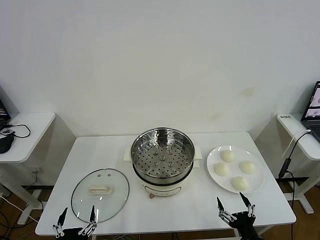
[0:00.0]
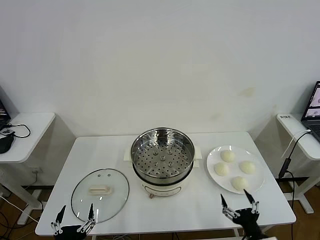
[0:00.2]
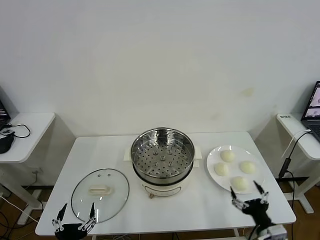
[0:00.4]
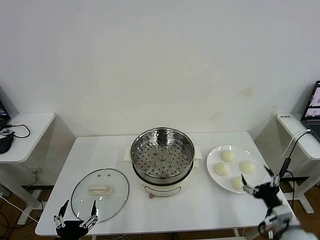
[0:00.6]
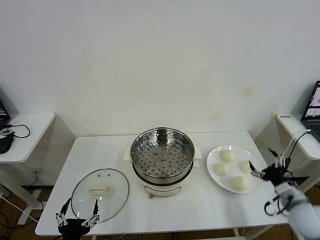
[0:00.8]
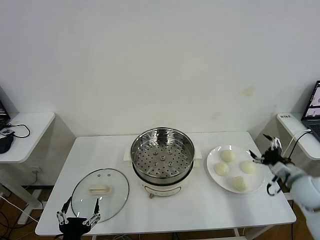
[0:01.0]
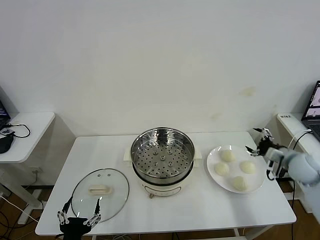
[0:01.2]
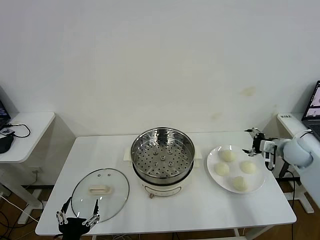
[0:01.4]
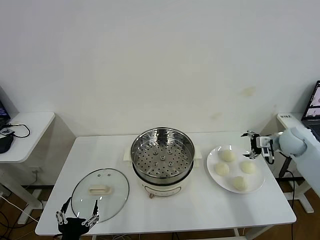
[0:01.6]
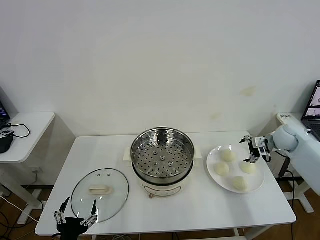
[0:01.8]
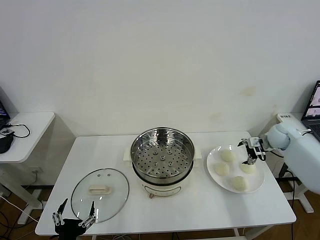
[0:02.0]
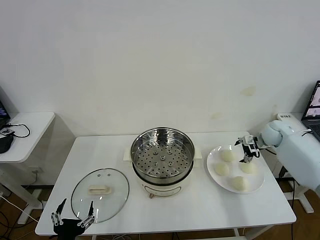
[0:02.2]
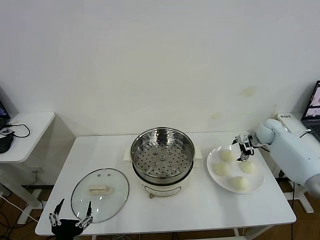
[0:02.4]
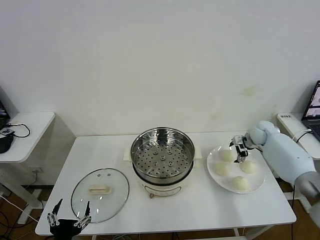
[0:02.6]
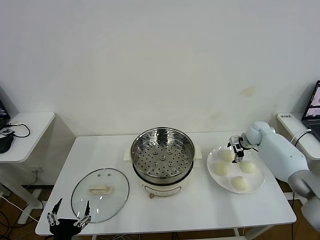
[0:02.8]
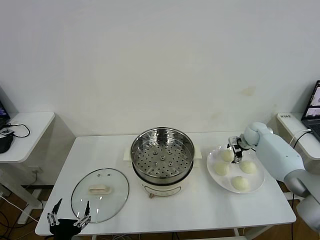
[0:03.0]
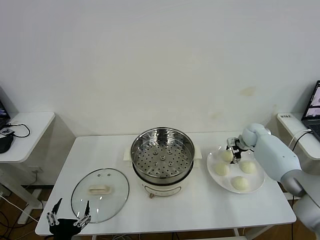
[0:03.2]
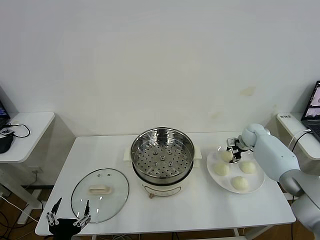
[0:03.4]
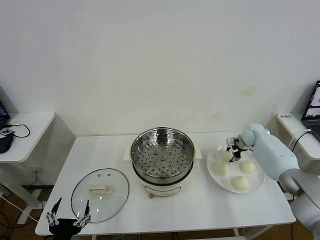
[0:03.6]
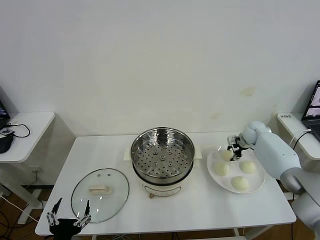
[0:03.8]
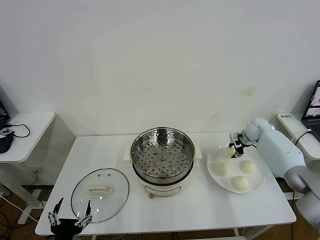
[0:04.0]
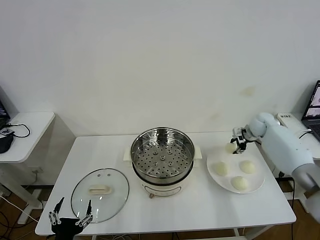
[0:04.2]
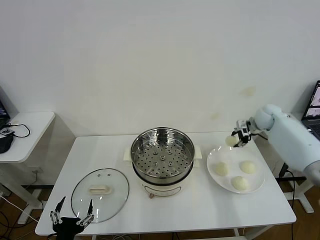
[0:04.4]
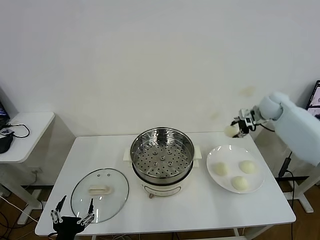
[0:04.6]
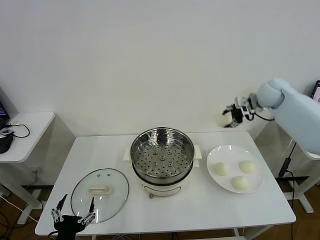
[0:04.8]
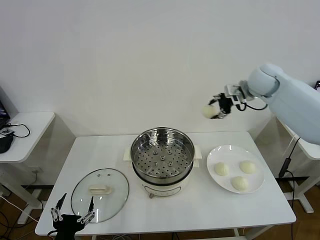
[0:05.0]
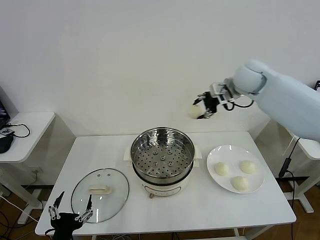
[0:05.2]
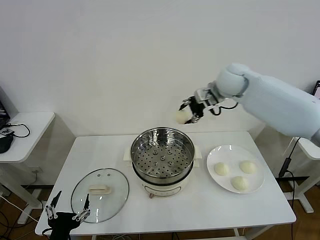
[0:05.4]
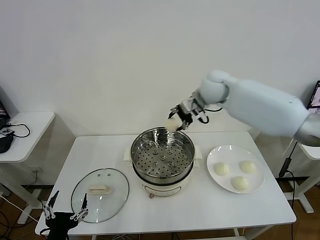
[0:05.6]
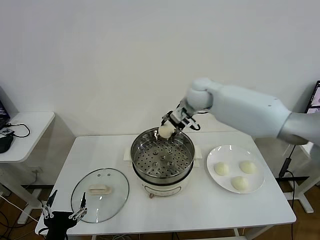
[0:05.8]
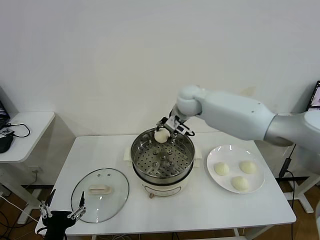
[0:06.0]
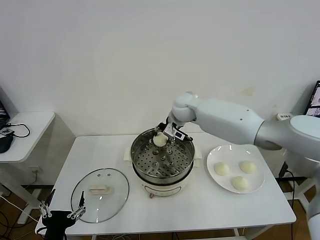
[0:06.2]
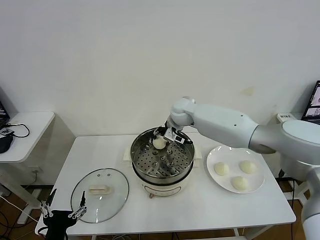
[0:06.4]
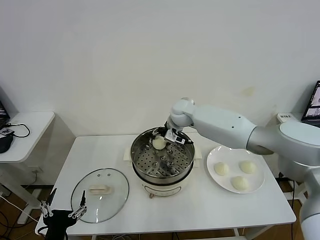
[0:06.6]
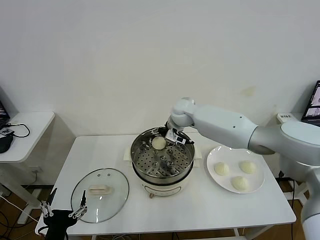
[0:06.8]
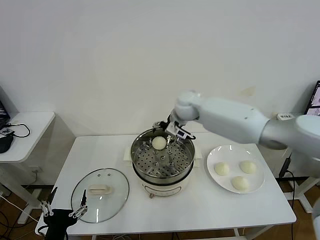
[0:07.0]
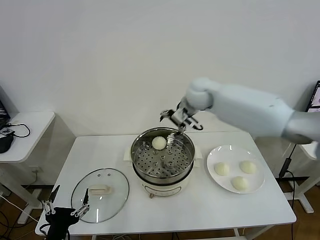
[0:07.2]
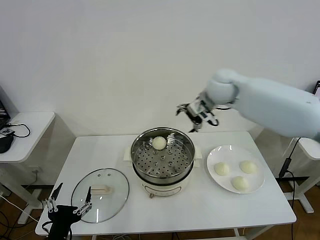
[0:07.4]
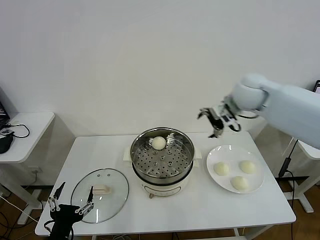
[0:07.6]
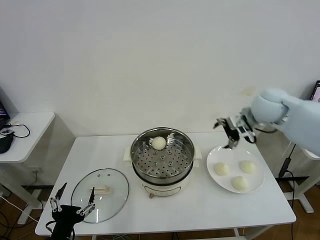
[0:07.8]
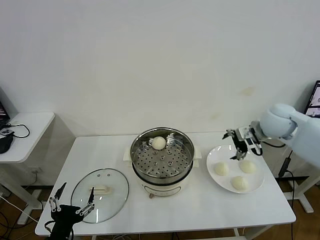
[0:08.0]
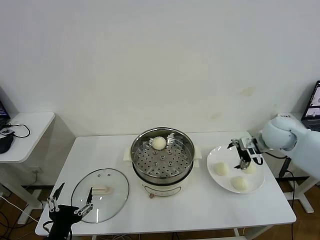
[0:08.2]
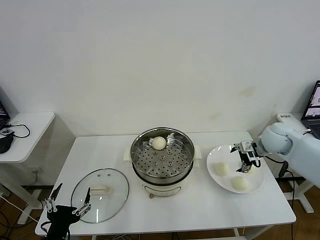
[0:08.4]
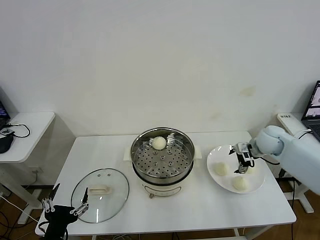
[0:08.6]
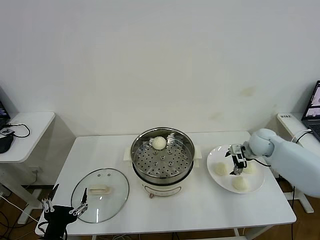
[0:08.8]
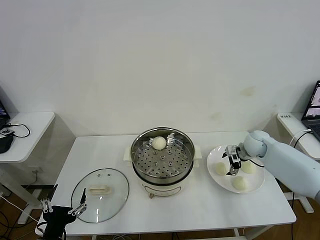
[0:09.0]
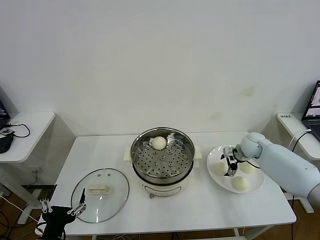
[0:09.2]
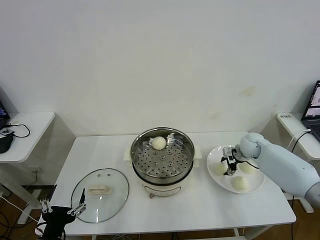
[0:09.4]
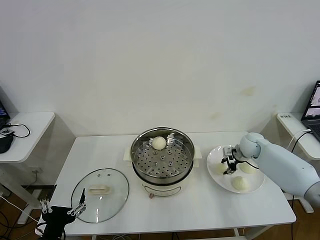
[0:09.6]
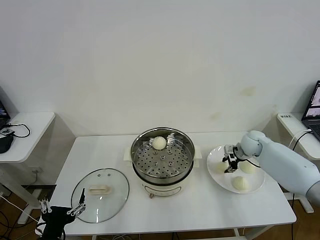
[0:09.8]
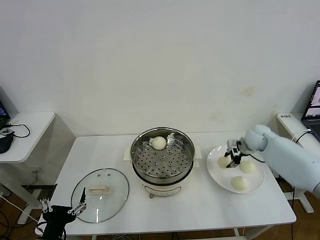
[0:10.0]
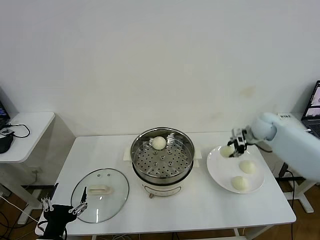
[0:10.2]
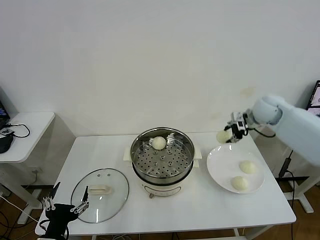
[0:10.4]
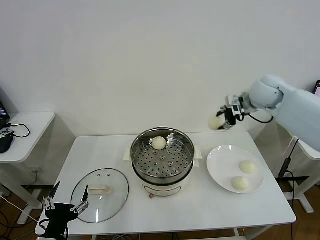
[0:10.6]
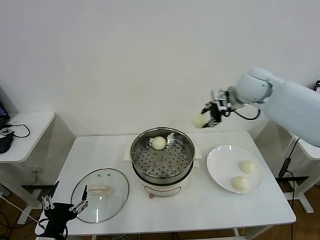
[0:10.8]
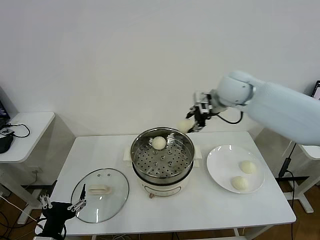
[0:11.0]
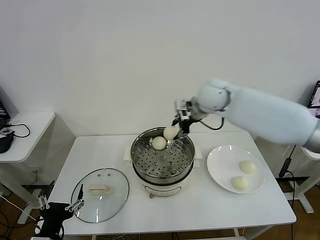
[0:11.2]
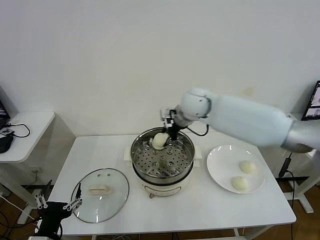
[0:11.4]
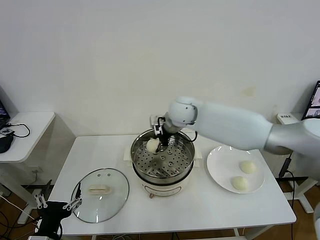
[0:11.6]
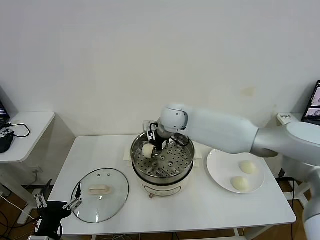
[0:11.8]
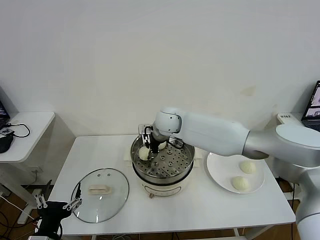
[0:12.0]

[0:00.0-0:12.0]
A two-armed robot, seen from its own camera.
Task of the whole recording: take steamed baozi put them in steamer then cover it.
Step, 0:00.0 to 0:03.4: Grasp the baozi in the plate with right gripper.
Step, 0:03.6 to 0:06.6: Place the baozi on the steamer with right gripper.
Step, 0:06.8 to 0:09.4: Grasp the baozi in the plate with right gripper.
0:01.6 to 0:03.0: The right gripper moves forward, downward and to the left, some 15 cm.
0:03.0 to 0:04.4: The right gripper moves upward, roughly 10 cm, and closes.
0:04.4 to 0:06.0: The right gripper moves to the left, roughly 30 cm.
0:06.0 to 0:07.6: The right gripper is displaced to the right and upward by roughly 20 cm, and opens up.
0:07.6 to 0:09.0: The right gripper travels downward and to the right by about 25 cm.
0:09.0 to 0:10.4: The right gripper shifts roughly 15 cm upward, and closes up.
0:10.4 to 0:12.0: The right gripper travels to the left by some 35 cm.

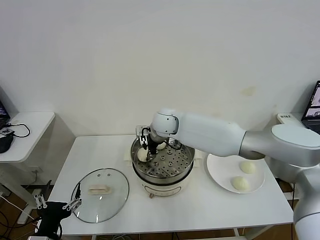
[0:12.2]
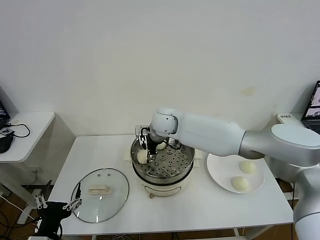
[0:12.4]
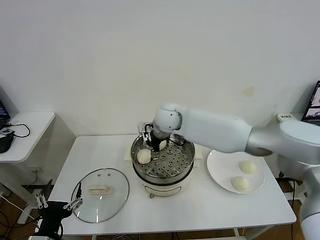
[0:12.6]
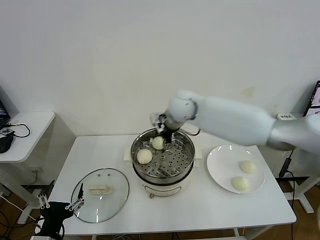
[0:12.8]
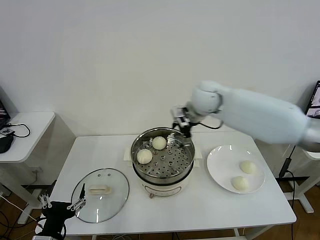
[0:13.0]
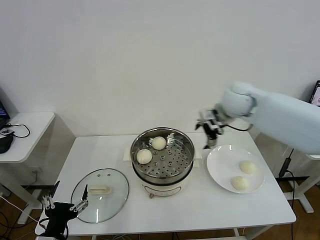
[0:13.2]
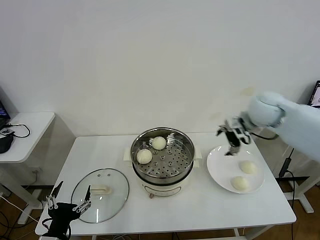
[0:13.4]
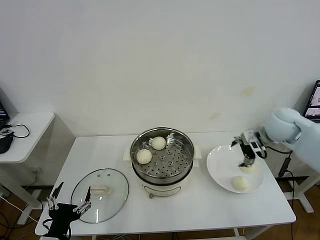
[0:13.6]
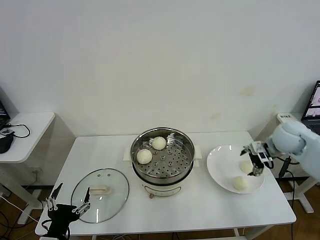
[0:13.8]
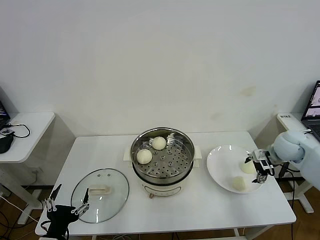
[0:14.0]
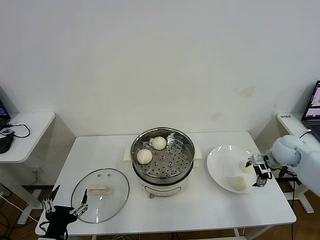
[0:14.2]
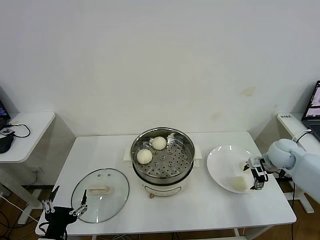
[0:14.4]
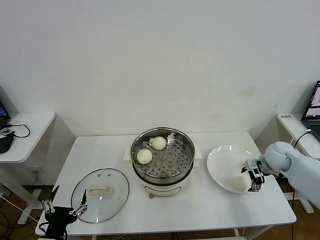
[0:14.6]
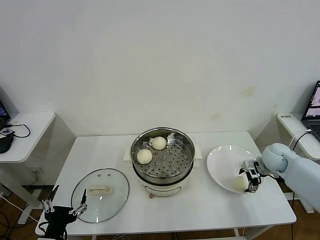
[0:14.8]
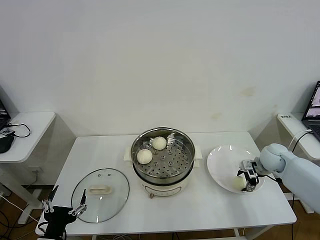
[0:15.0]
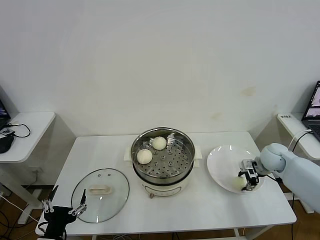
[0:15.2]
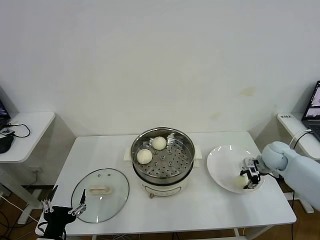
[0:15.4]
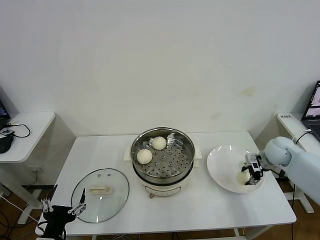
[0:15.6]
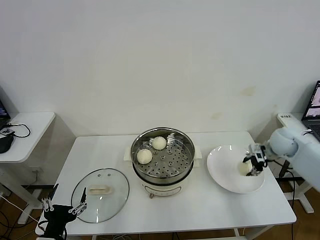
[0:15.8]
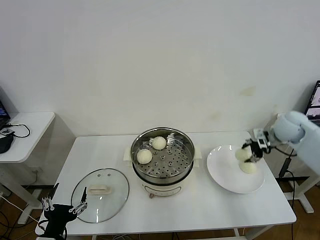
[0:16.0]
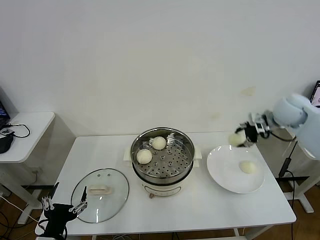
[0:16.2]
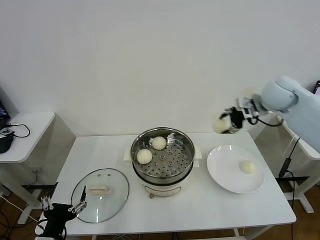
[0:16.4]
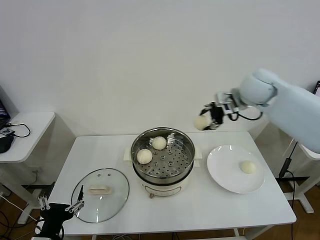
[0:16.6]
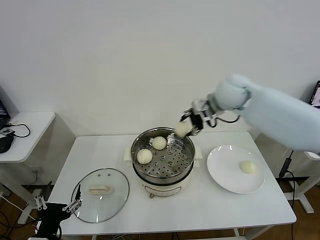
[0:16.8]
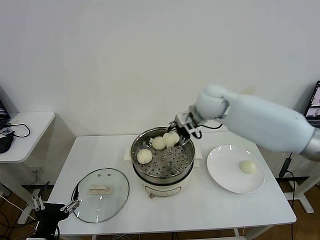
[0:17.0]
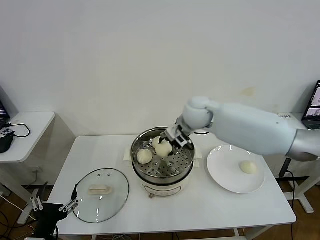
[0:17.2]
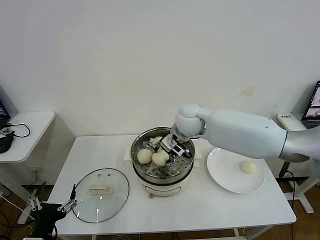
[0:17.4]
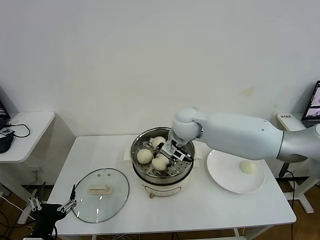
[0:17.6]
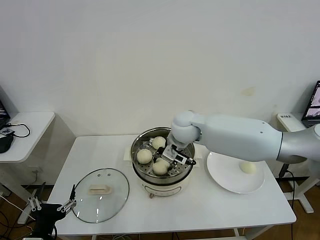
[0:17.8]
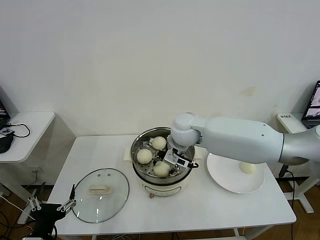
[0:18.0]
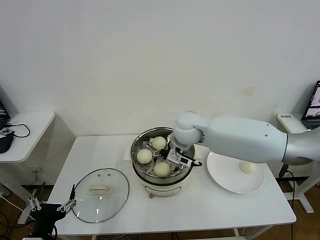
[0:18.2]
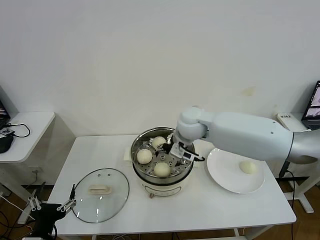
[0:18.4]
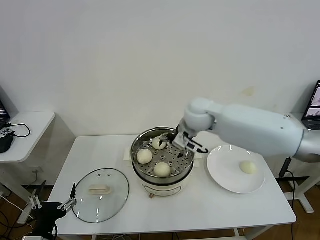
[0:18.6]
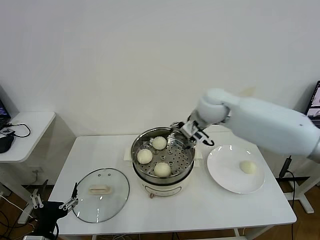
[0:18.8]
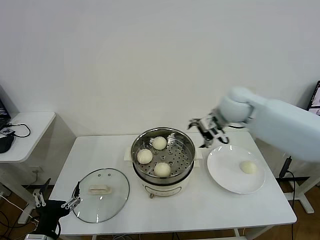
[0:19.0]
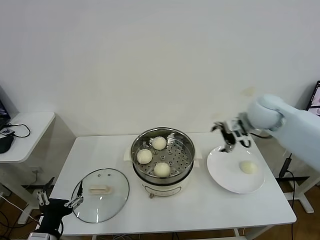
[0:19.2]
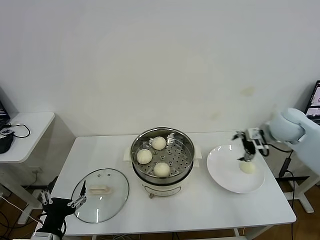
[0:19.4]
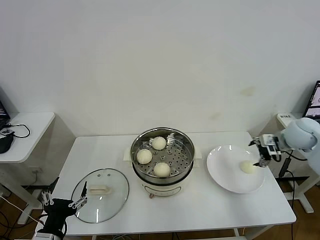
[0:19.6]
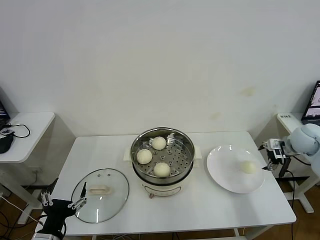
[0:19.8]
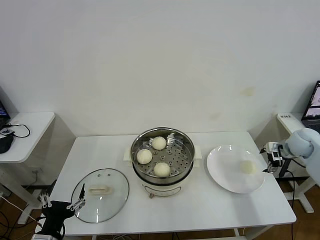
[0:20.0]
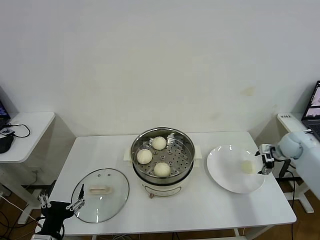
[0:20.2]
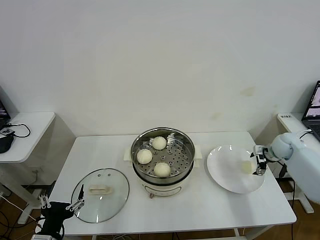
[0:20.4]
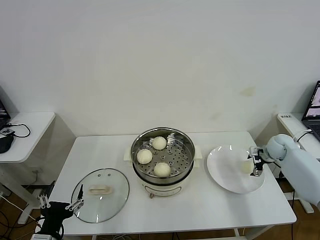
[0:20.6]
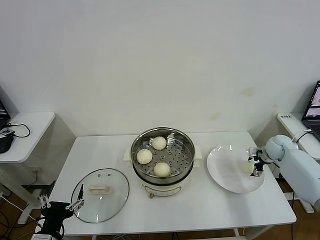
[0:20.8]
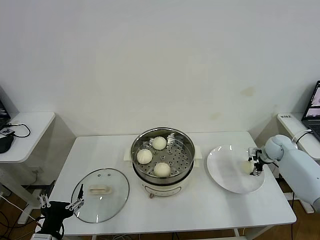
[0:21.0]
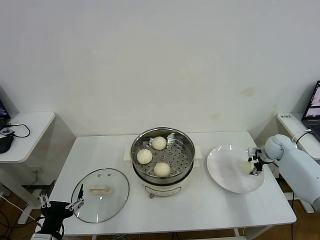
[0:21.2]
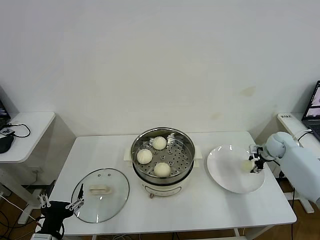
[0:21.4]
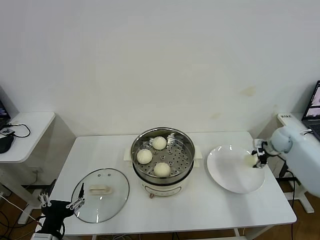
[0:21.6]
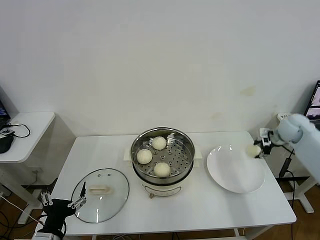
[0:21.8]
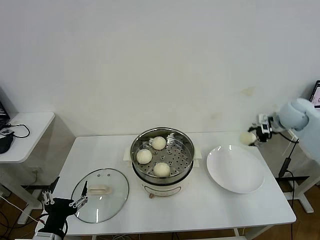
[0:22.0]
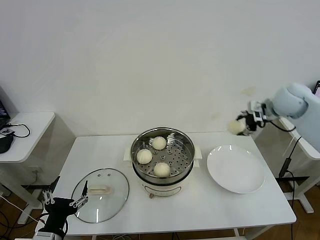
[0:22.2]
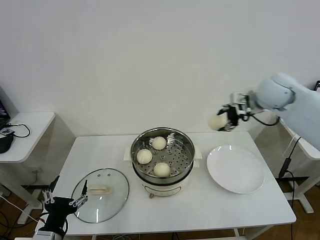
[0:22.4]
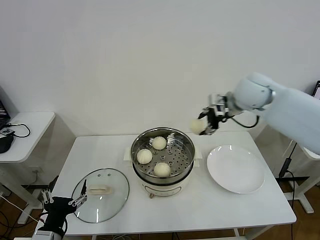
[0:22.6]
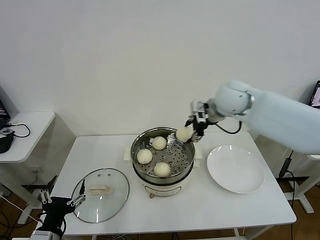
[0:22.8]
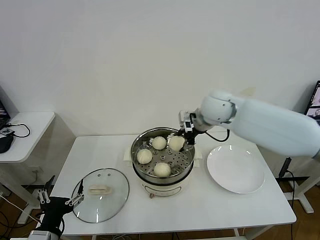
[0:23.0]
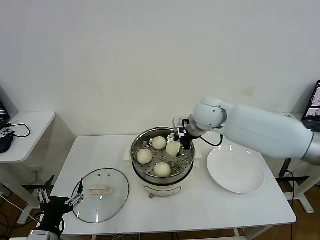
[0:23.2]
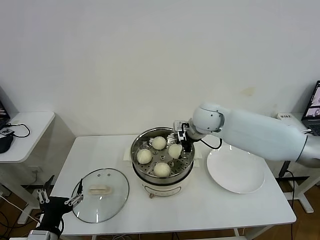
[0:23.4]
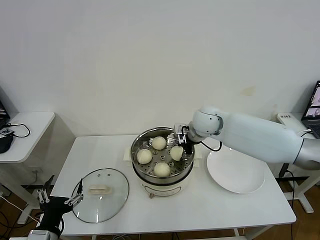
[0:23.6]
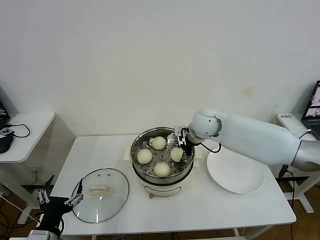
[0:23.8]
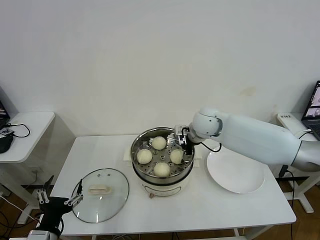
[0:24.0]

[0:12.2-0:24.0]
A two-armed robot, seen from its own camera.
Task of the whole recording: take steamed baozi put them in steamer then cover it.
Step, 0:12.6 to 0:15.2: Grasp the baozi in the plate with right gripper.
Step, 0:15.4 to 0:18.0: Place the baozi on the steamer with right gripper.
Step, 0:18.4 to 0:21.2: Grasp the baozi in the plate with right gripper.
Step, 0:21.4 to 0:24.0: Place the baozi on the steamer with right gripper.
0:12.2 to 0:13.6: The right gripper travels to the right by some 35 cm, and opens its fingers.
0:13.6 to 0:15.2: The right gripper shifts some 15 cm downward, and closes up.
0:15.2 to 0:16.6: The right gripper shifts approximately 30 cm upward and to the left.
0:16.6 to 0:18.2: The right gripper is displaced to the left and downward by approximately 20 cm, and opens.
0:18.2 to 0:19.6: The right gripper goes roughly 35 cm to the right.
0:19.6 to 0:21.0: The right gripper shifts roughly 15 cm downward and forward, and closes its fingers.
0:21.0 to 0:22.6: The right gripper shifts some 35 cm upward and to the left.
0:22.6 to 0:24.0: The right gripper shifts about 15 cm downward and to the left, and opens.
